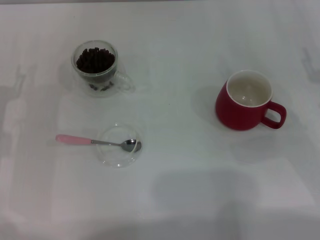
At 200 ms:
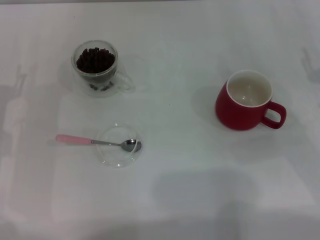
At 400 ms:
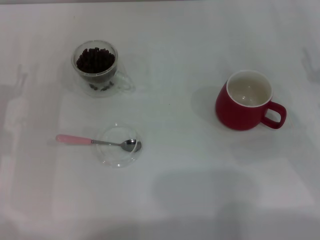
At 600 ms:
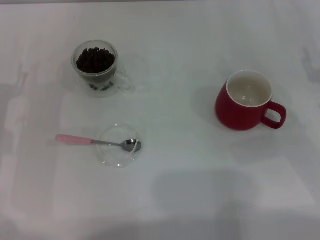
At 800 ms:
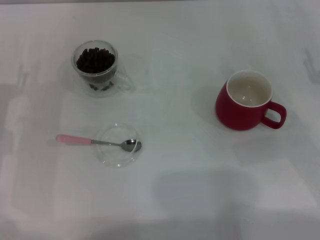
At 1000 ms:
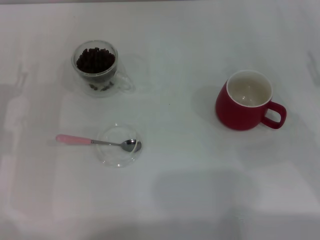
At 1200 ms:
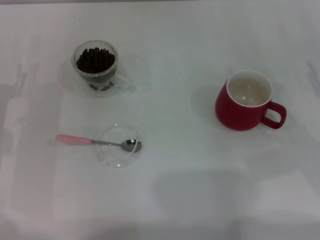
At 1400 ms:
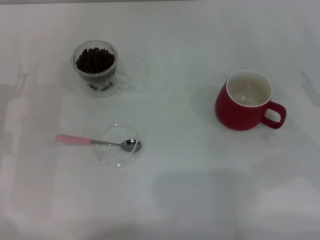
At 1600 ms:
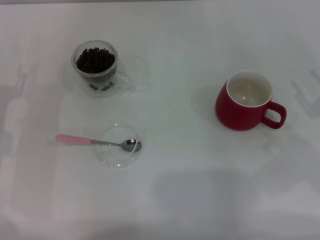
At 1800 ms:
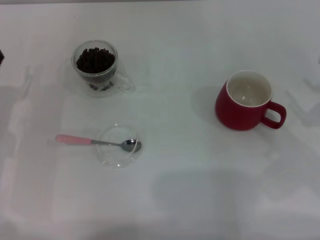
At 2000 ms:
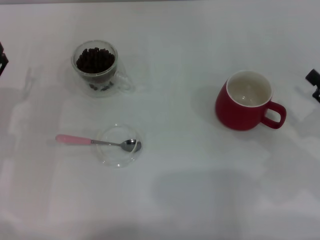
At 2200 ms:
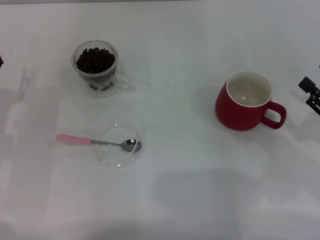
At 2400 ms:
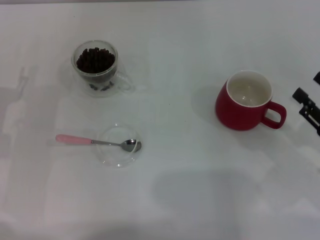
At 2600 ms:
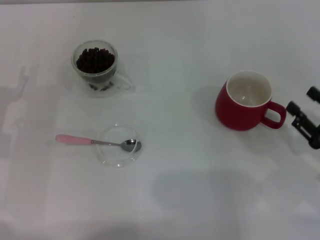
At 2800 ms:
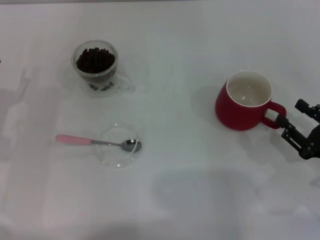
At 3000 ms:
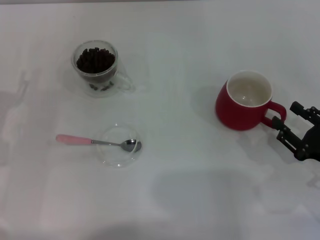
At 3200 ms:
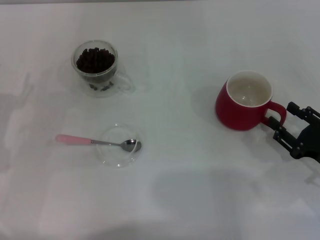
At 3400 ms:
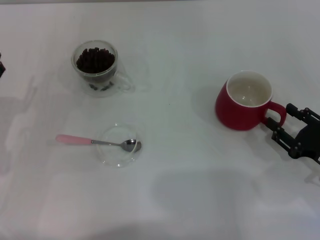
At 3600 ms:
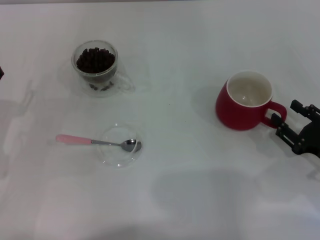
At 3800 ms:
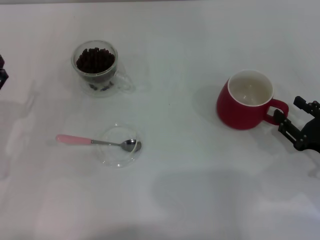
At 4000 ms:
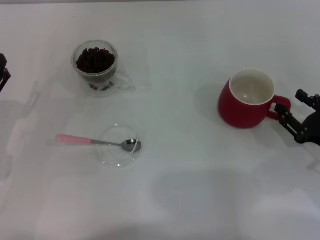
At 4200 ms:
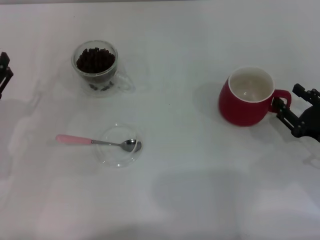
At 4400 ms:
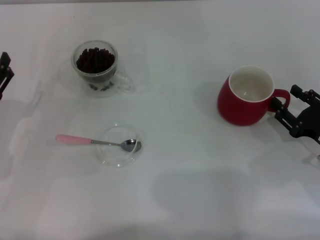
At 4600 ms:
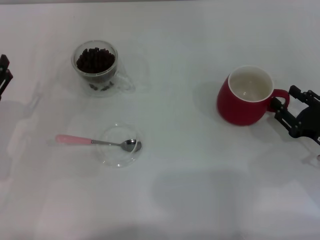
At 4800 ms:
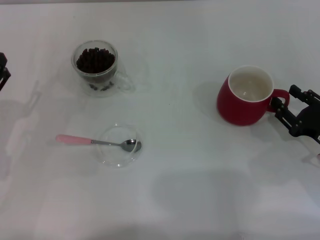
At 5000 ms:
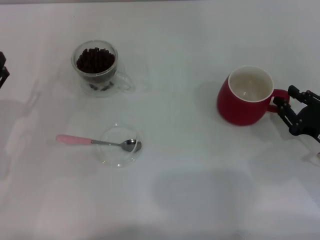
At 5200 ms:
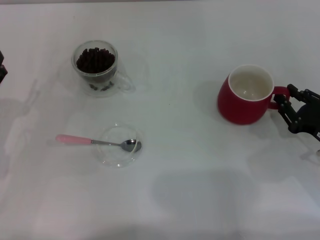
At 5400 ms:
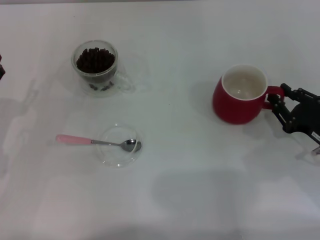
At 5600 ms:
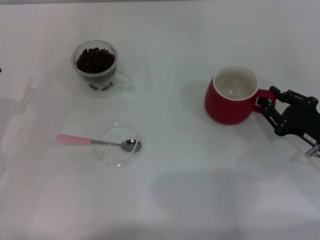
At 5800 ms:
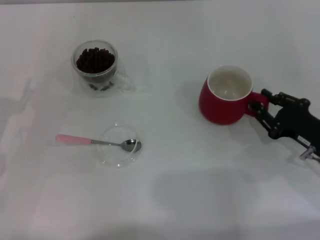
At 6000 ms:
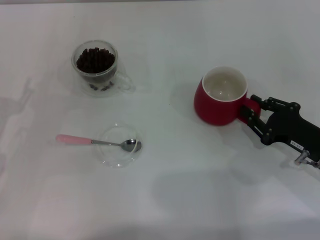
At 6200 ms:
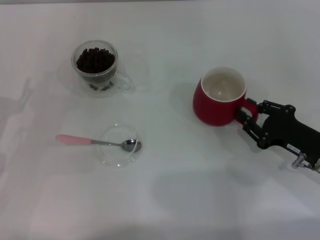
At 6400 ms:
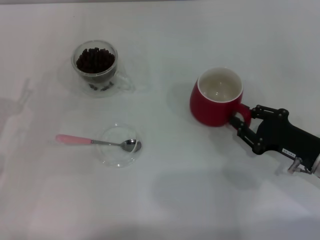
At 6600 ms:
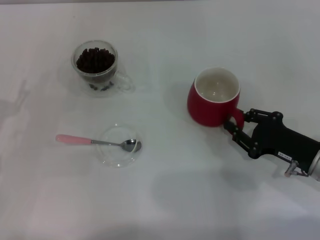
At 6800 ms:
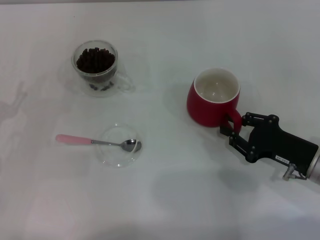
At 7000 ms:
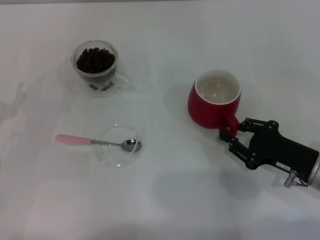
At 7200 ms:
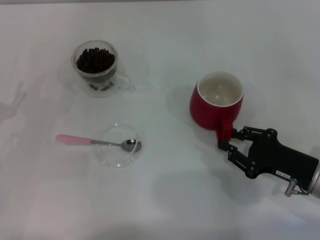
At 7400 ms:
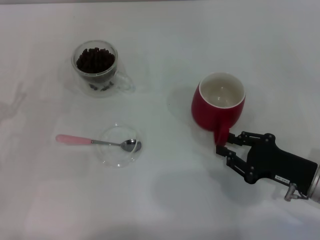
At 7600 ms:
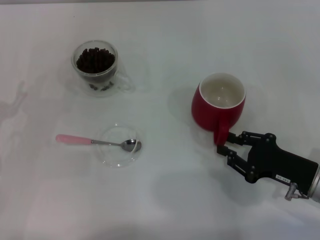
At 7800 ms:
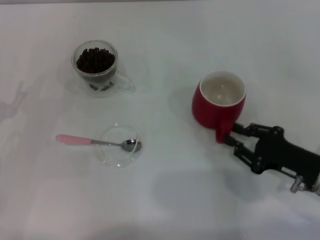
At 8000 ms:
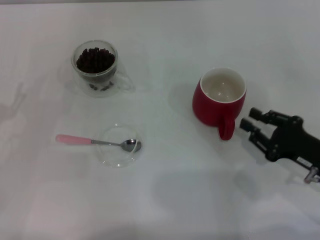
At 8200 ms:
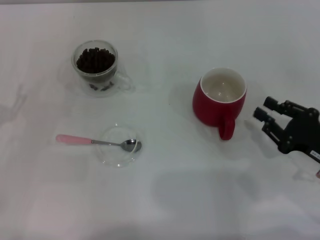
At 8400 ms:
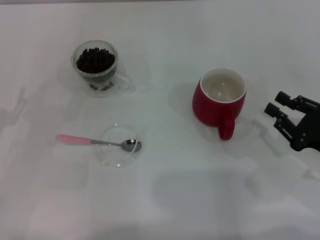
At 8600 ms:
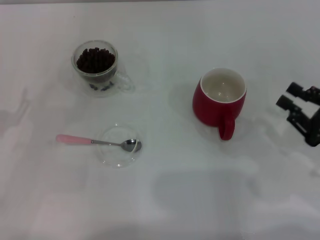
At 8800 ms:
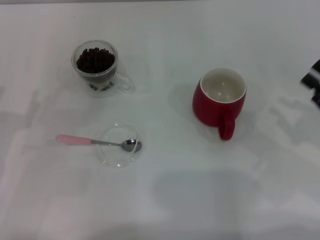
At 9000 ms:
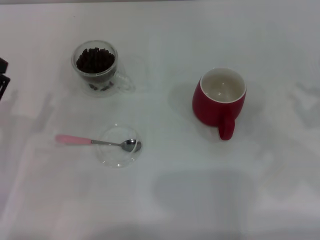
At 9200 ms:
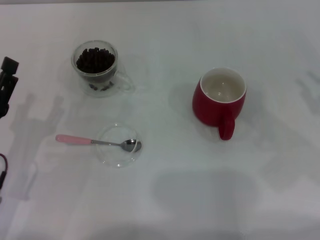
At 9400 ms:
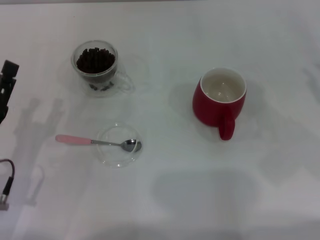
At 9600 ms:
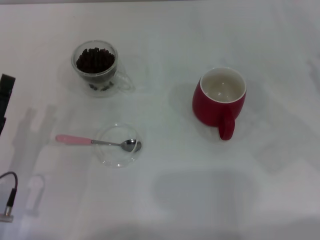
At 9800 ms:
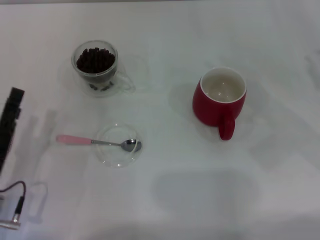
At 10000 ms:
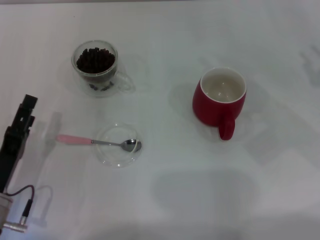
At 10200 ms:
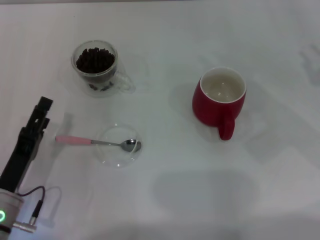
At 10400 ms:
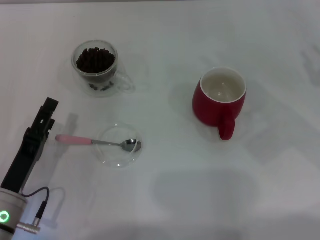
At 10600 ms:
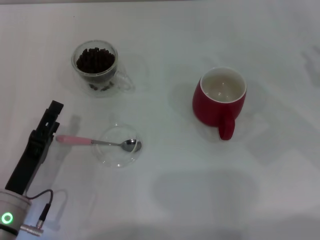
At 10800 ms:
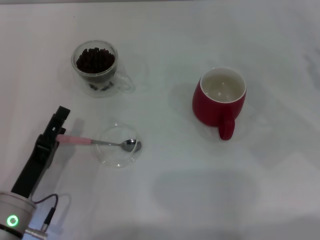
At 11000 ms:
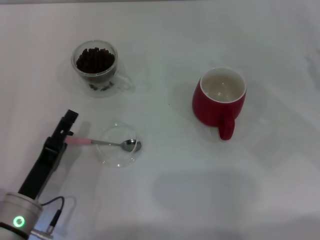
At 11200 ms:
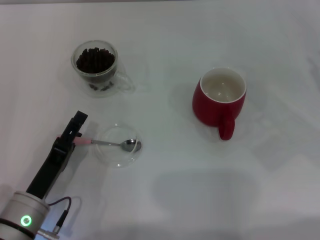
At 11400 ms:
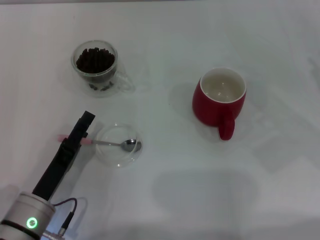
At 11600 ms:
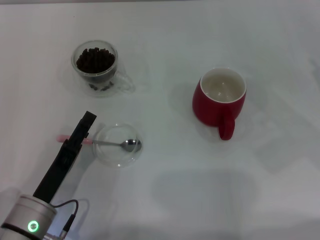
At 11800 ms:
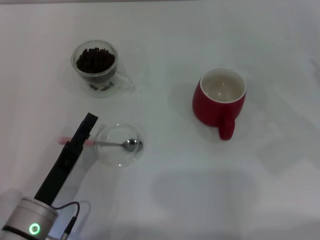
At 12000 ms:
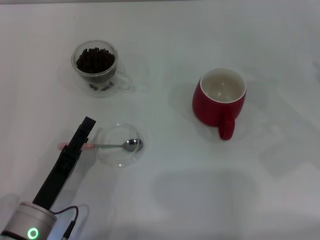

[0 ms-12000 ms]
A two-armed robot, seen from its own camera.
Task of the whole recording: Use a pink spoon to take out the coffee beans from the glass and pour them into the red cup.
Step, 0 ms to 8000 ms: Move the cup to the center of view with the left gripper.
1600 ms to 3000 ms: The right gripper travels downward by some 5 cm.
3000 ms to 4400 ms: The grippers stay close to where they were, moving slightly.
4400 ms to 6000 ms: The right gripper closes its fingers.
6000 ms to 7600 ms: The grippers move only a little.
7600 ms to 9000 ms: The left gripper ends up roughly 5 cm from where it was. Meanwhile the right gripper shifts about 10 cm to the right and upward.
9000 ms to 10400 ms: The left gripper moves to the right, roughly 5 cm.
10400 ms to 12000 ms: There are only small adjustments of the grippers.

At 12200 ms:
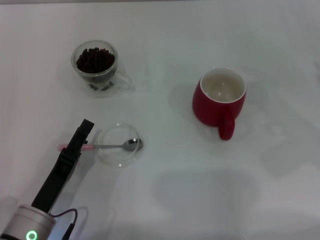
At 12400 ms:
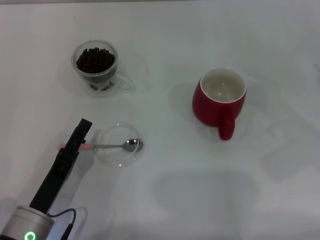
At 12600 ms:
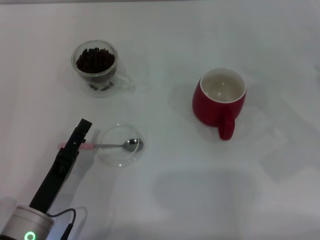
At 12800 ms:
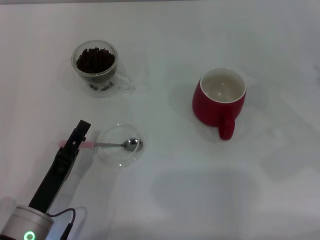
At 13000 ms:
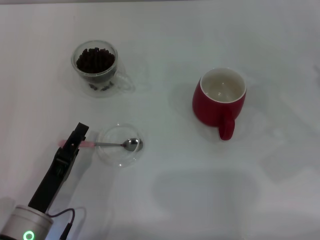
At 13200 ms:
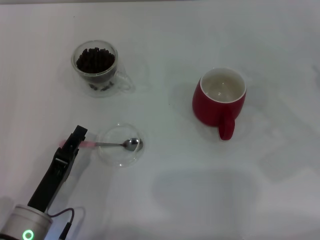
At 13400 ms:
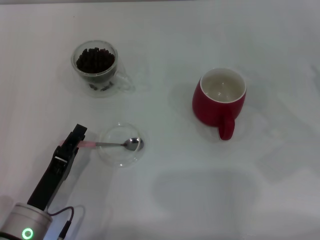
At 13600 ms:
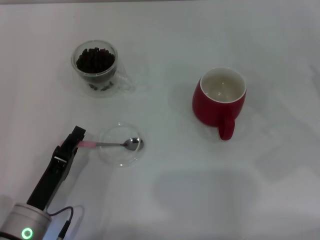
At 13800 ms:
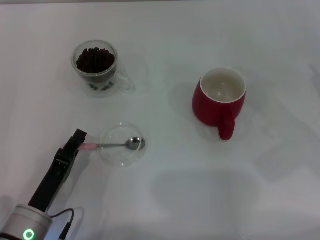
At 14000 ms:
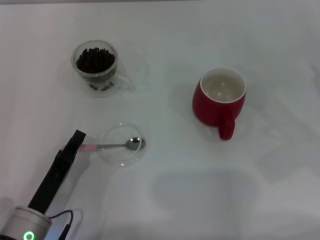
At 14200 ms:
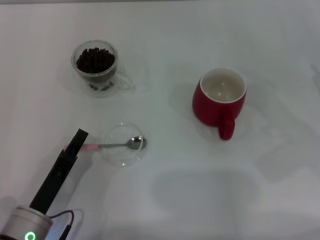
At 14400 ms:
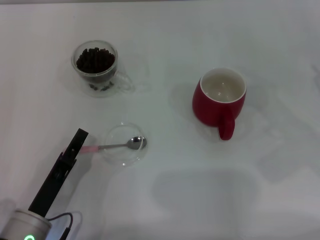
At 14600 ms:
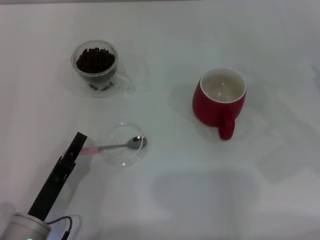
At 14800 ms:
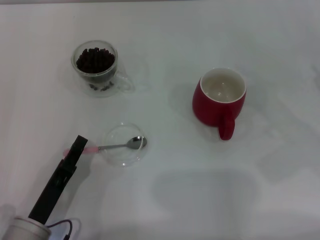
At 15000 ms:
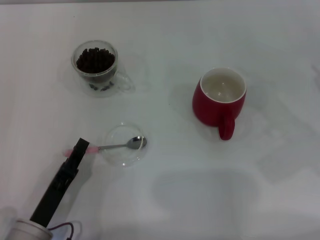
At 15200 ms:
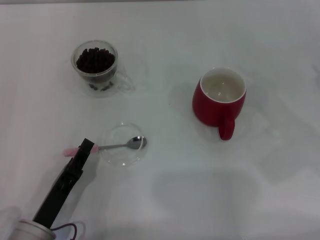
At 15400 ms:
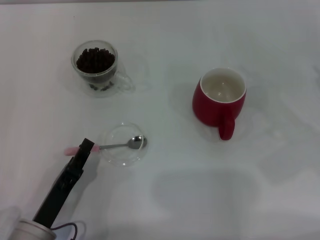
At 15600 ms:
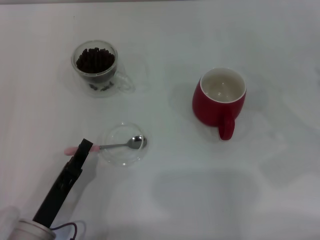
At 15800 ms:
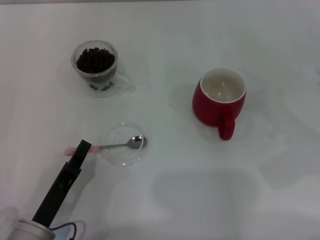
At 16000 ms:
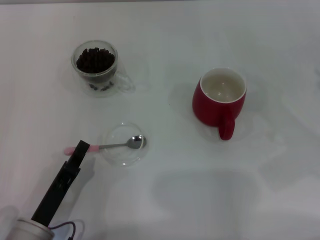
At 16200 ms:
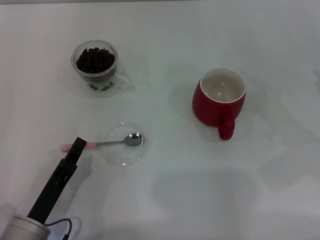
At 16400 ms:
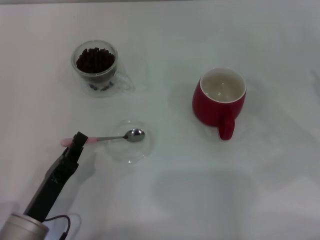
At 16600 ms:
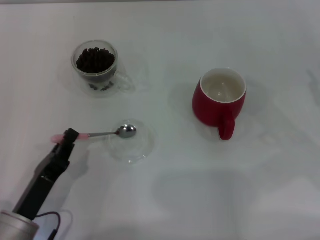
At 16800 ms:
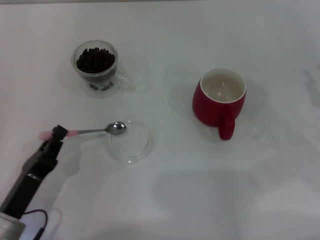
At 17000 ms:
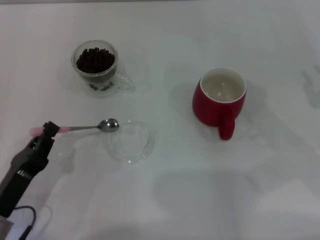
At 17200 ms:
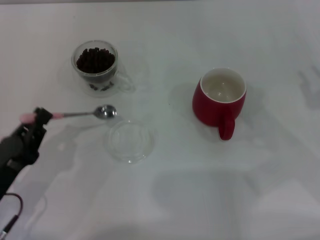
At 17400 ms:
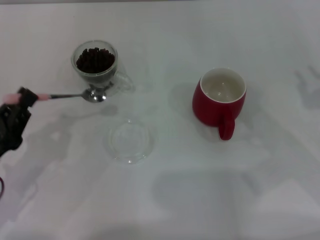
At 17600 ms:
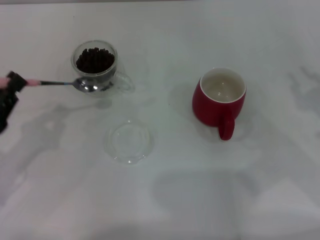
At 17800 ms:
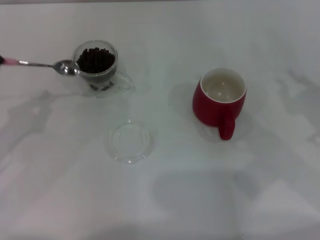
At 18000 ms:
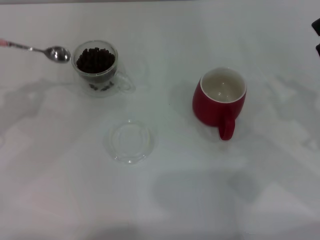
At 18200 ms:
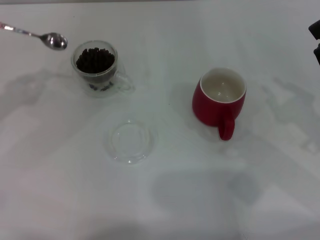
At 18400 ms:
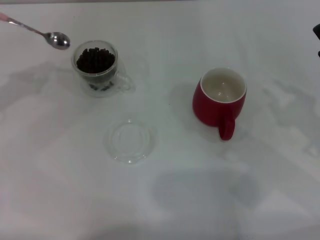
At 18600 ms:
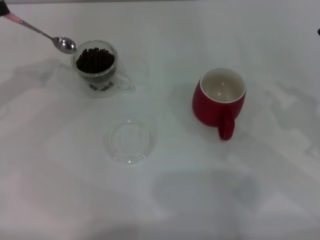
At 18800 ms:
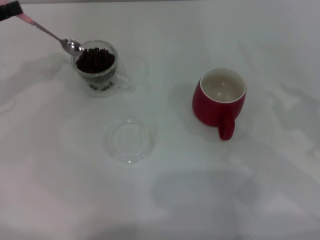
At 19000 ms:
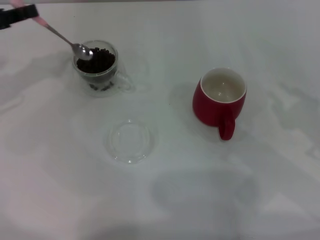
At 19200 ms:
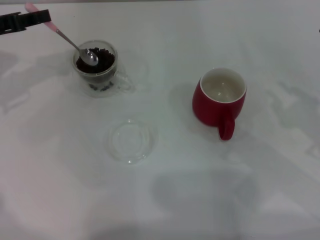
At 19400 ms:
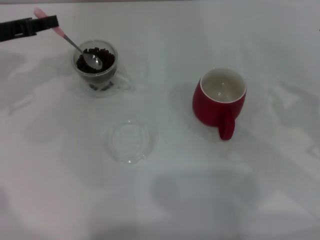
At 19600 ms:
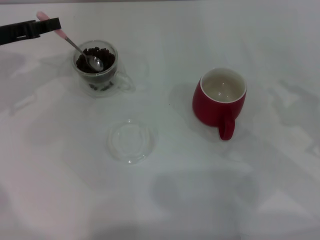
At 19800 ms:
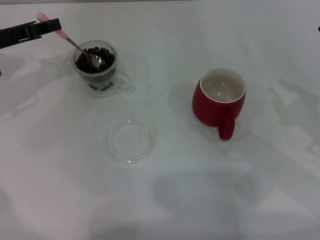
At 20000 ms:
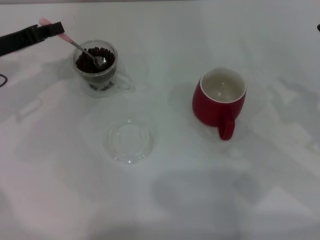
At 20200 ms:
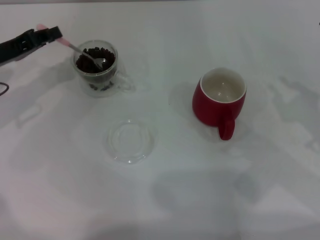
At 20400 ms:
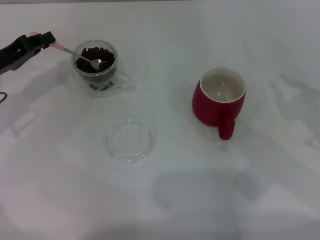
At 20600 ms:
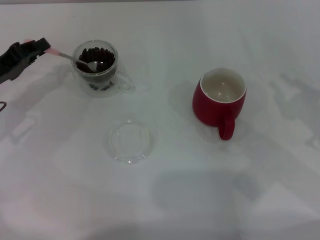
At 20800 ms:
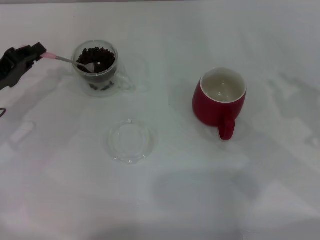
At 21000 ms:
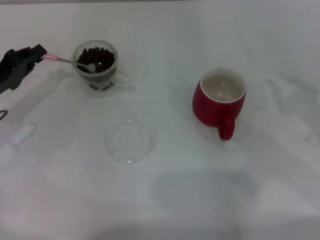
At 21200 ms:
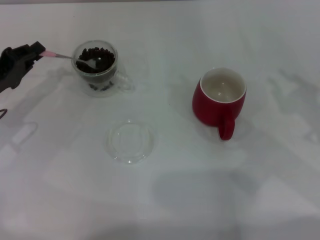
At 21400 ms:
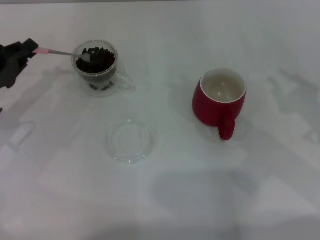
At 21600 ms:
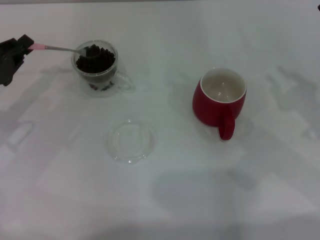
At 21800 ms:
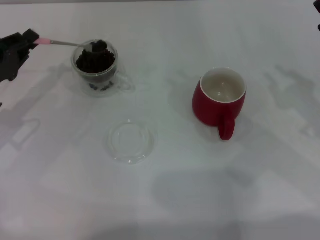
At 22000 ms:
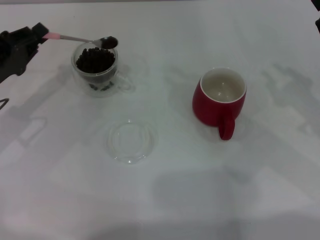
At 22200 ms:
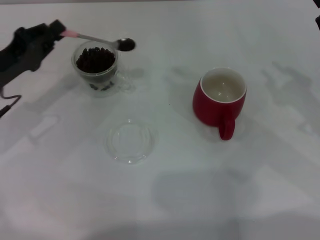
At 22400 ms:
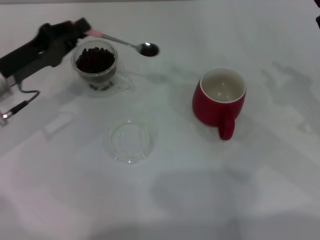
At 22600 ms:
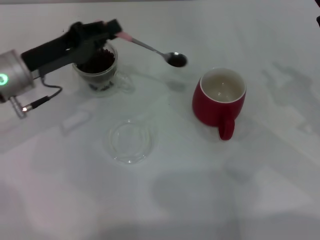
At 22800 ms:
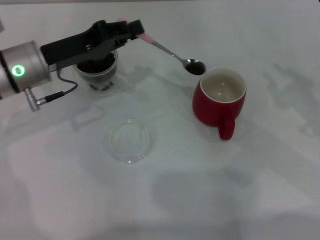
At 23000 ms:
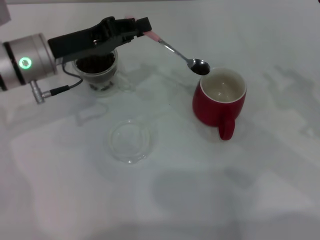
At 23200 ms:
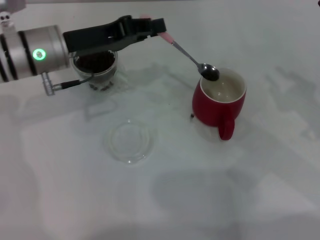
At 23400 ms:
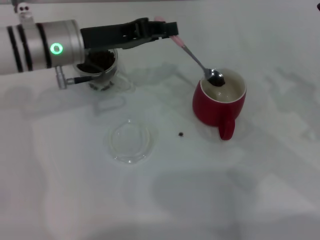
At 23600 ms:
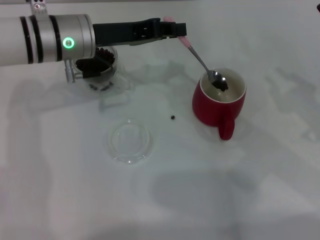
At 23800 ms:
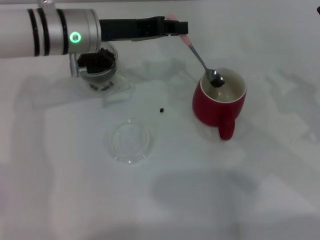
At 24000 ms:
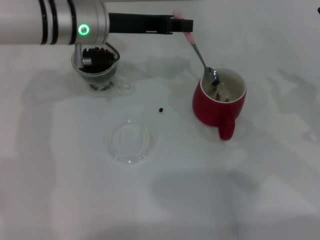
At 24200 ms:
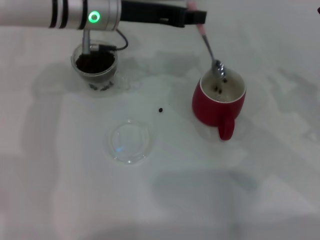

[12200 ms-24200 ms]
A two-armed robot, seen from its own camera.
Task of the whole recording: Use a pink spoon to take out the coffee beans from the glass and pour them into the red cup.
Step, 12200 ms to 16800 ms: Pick up the spoon with the right gripper.
12200 ms to 13800 ms: The left gripper closes up.
13800 ms to 16600 ms: The grippers move only a little.
16600 ms to 18200 ms: The left gripper shifts roughly 25 cm forward, to the left and upward, while the right gripper is displaced to the left by roughly 5 cm.
18200 ms to 19800 ms: The left gripper travels forward and to the right by approximately 10 cm.
19800 ms to 21200 ms: The left gripper heads backward and downward, covering approximately 10 cm.
21200 ms to 22600 ms: The left gripper is displaced to the right by some 10 cm.
22600 ms to 24200 ms: The left gripper travels to the right, upward and forward by about 15 cm.
